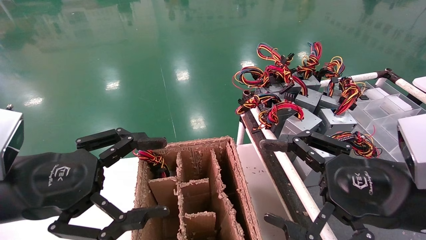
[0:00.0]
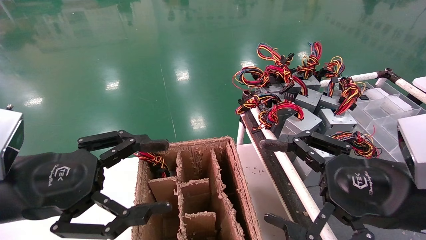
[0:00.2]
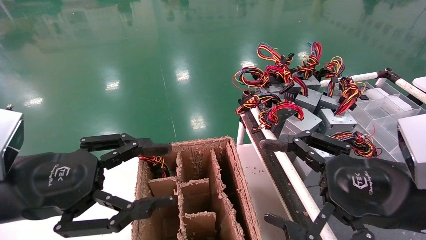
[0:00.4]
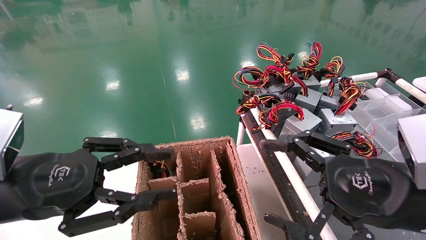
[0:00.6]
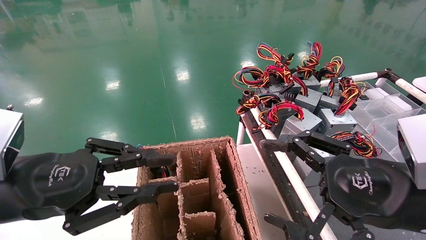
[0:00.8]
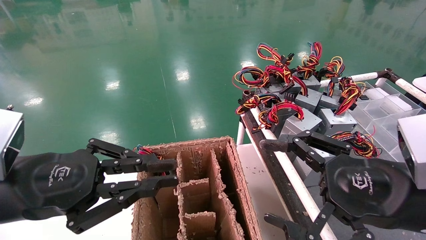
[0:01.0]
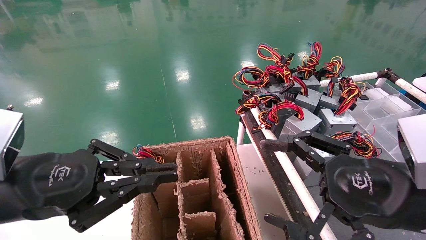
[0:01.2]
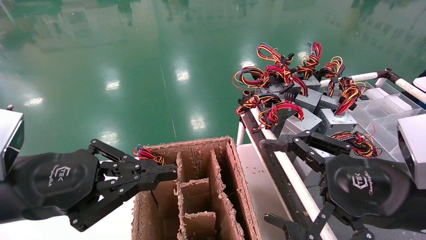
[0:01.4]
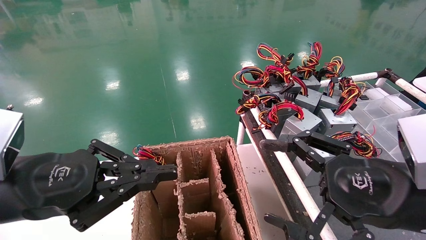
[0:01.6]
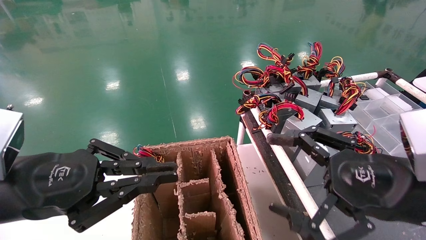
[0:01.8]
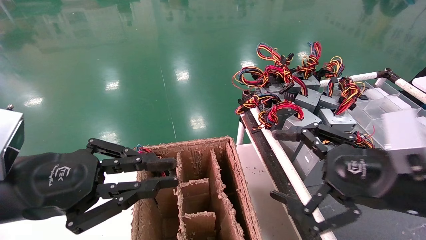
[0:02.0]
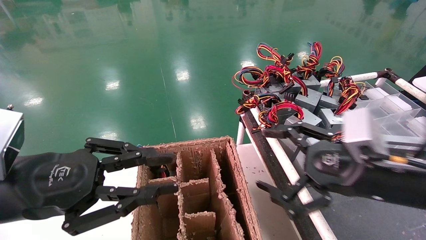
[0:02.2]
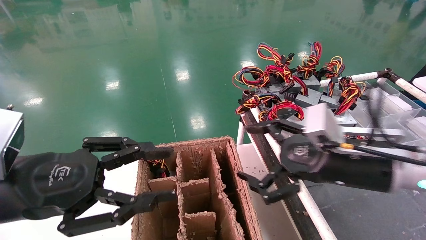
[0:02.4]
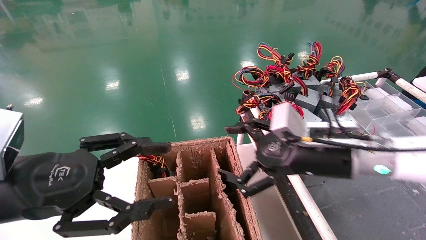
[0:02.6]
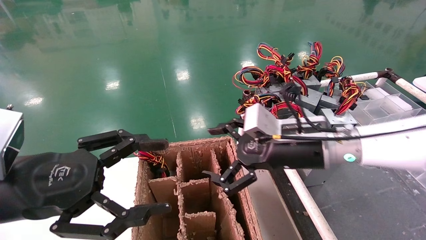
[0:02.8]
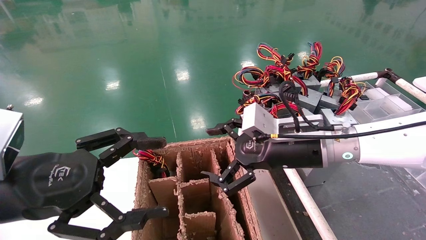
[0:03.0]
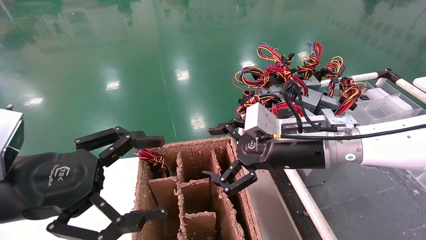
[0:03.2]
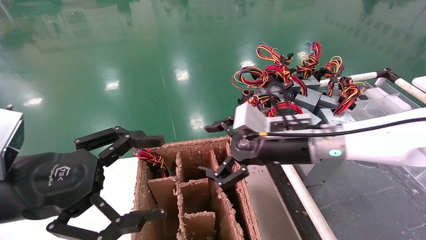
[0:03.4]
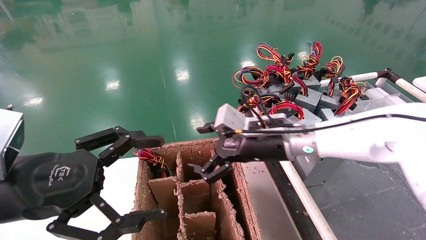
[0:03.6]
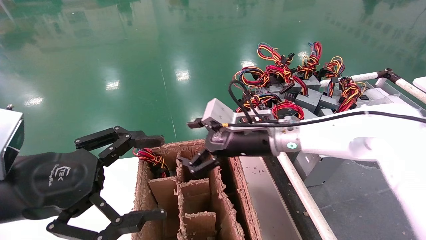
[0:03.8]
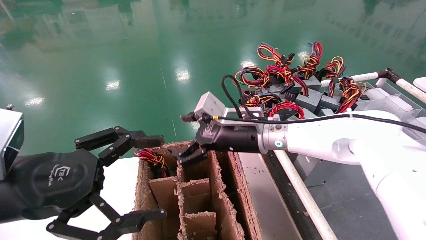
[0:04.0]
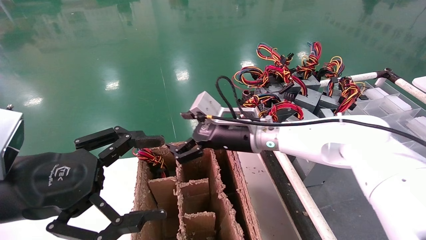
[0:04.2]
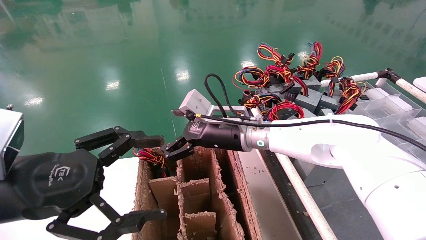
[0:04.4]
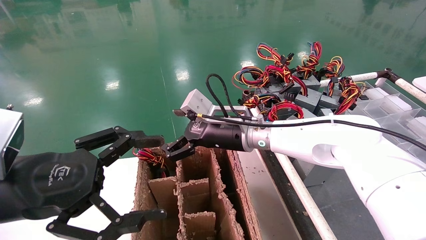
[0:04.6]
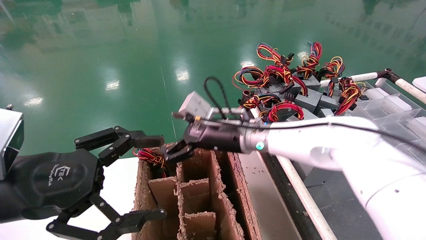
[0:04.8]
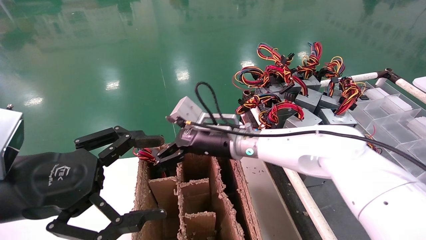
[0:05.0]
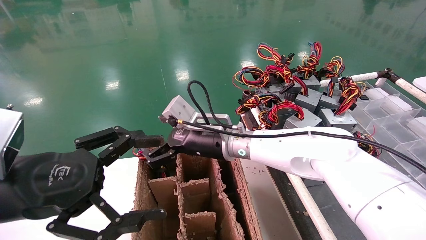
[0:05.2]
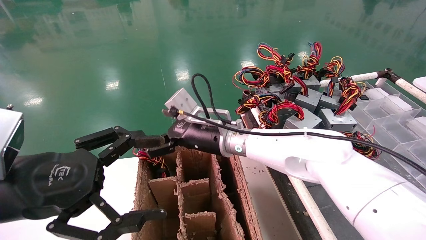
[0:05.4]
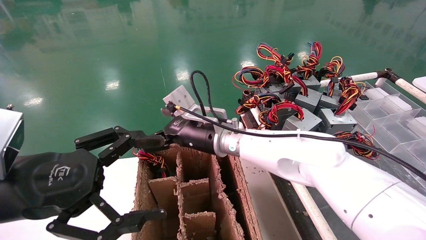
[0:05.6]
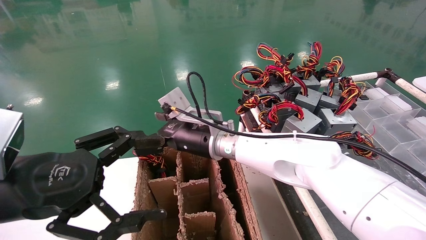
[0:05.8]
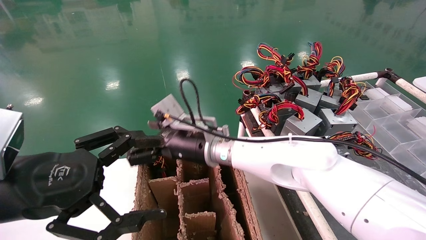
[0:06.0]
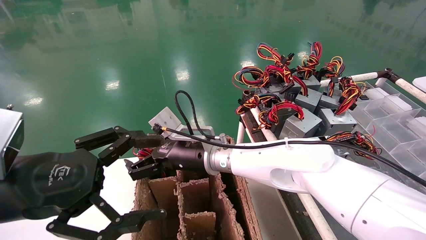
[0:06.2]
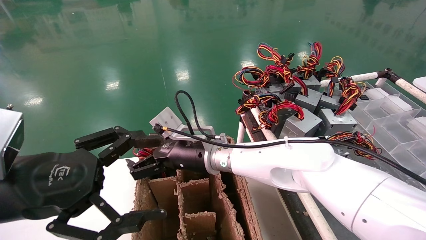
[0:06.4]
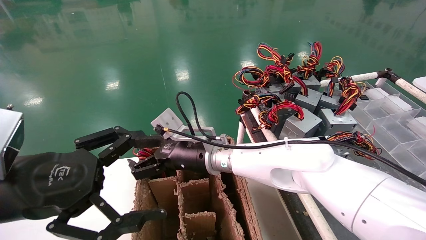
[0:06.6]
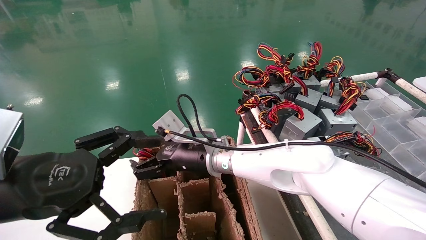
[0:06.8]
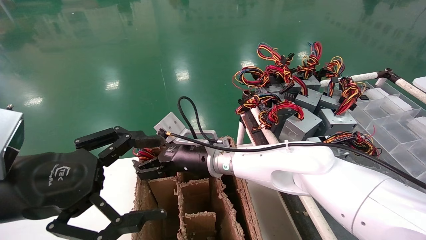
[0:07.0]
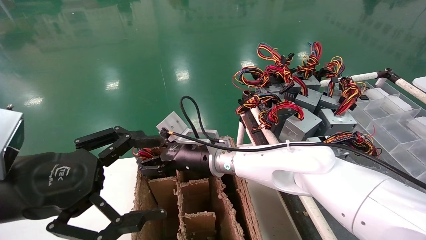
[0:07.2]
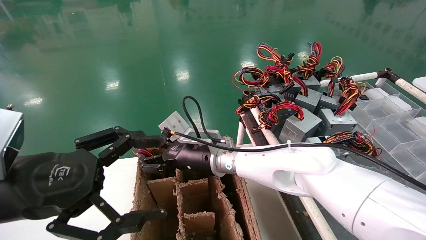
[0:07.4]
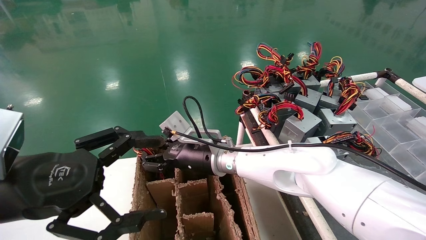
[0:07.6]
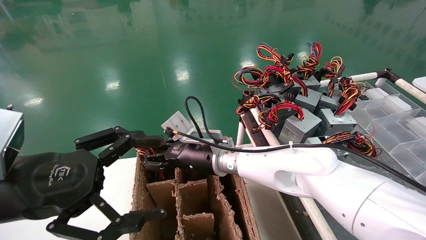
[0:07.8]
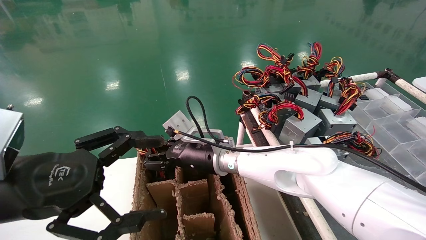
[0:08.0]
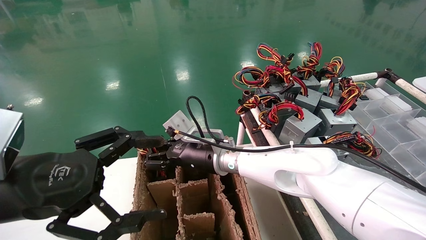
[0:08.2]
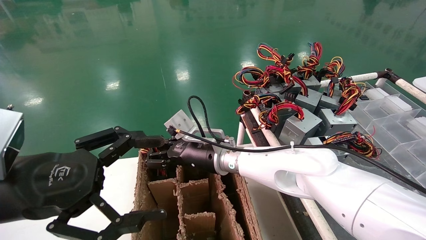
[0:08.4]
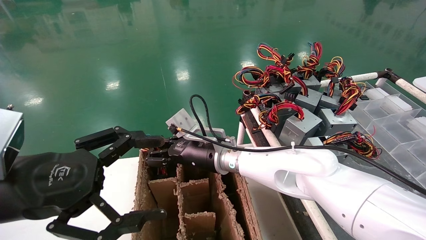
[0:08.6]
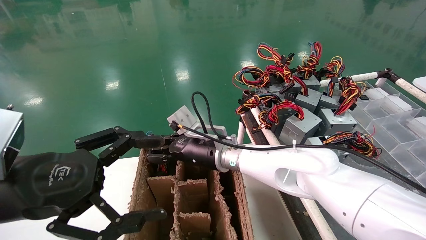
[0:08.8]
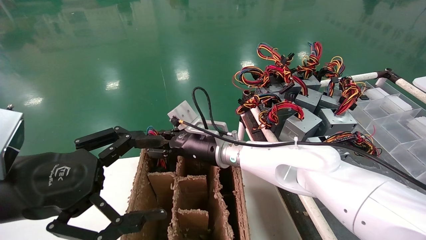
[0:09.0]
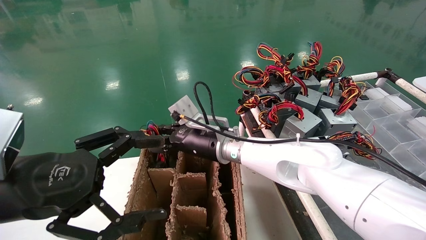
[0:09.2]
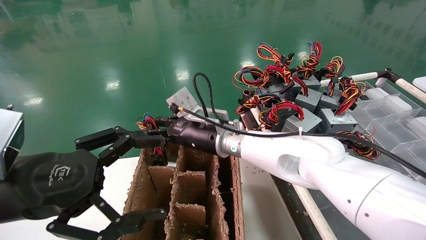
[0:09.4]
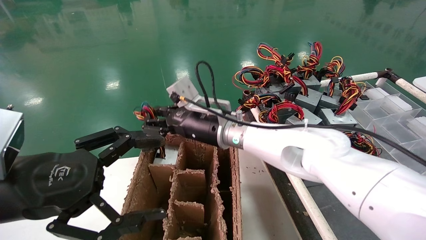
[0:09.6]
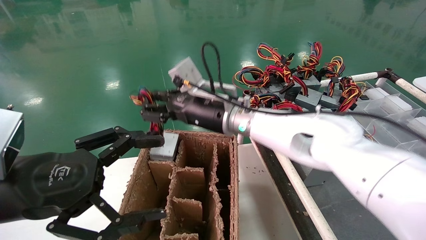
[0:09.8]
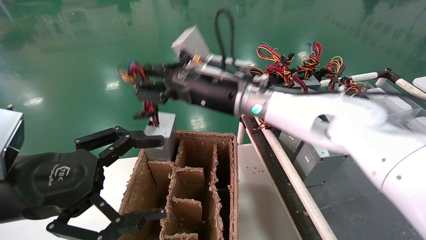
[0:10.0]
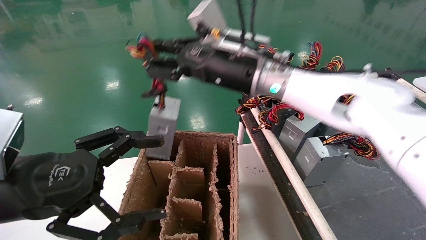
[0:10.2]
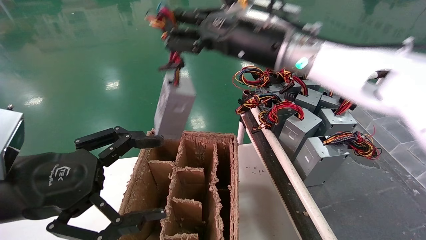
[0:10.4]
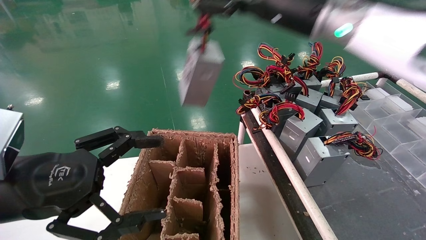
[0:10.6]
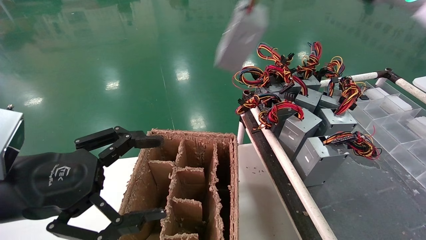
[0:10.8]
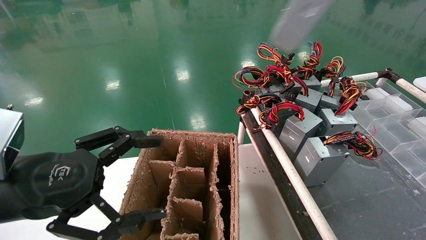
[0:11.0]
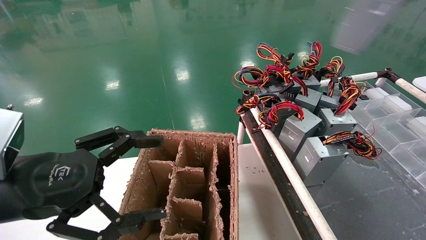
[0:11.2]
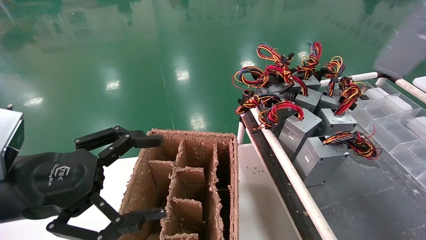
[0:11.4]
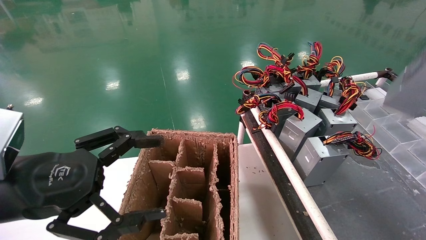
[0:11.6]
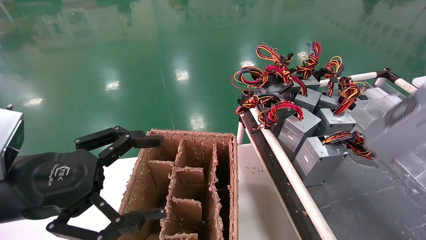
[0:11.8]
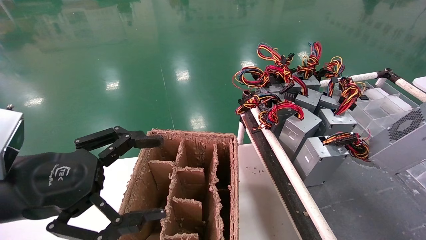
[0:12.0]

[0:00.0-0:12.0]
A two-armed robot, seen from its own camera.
Step, 0:01.4 to 0:07.8: Grab and lift the power supply from the large box.
0:00.0 to 0:01.6: The left gripper closes up.
0:01.6 to 0:03.0: The left gripper opens. The right gripper shifts about 20 cm forward and to the left.
0:03.0 to 0:04.4: The right gripper goes some 15 cm to the left and forward.
0:04.4 to 0:06.0: The right gripper heads to the left, covering approximately 10 cm.
0:06.0 to 0:07.6: The right gripper closes up.
0:07.6 to 0:09.0: The grippers move only a little.
0:09.0 to 0:10.4: The right gripper travels upward and to the right by about 25 cm.
0:10.4 to 0:12.0: The right gripper goes some 40 cm to the right and backward.

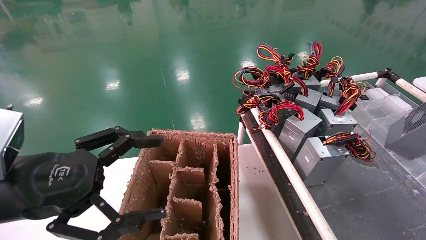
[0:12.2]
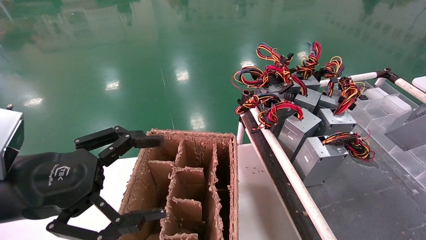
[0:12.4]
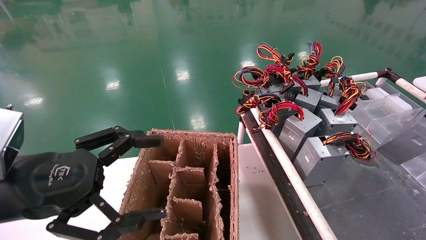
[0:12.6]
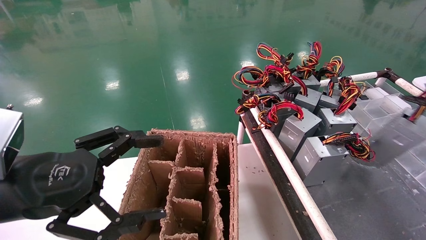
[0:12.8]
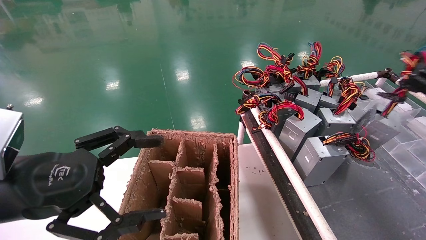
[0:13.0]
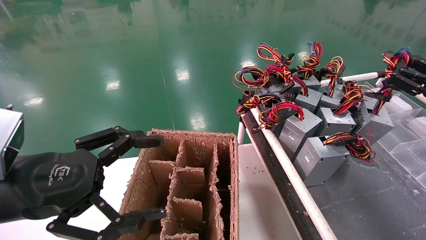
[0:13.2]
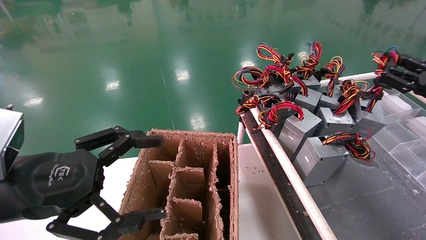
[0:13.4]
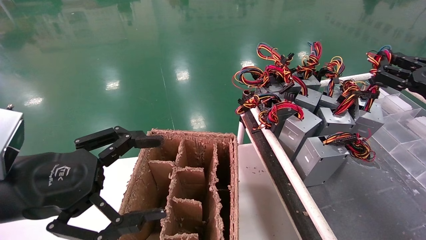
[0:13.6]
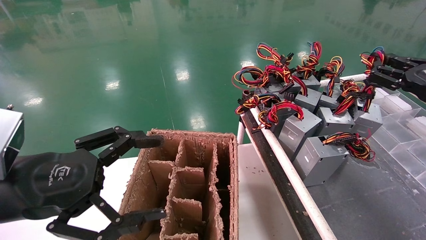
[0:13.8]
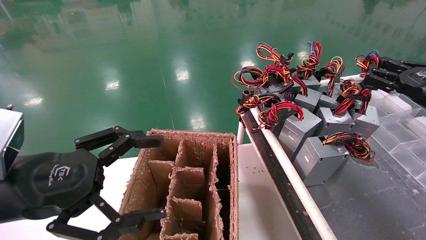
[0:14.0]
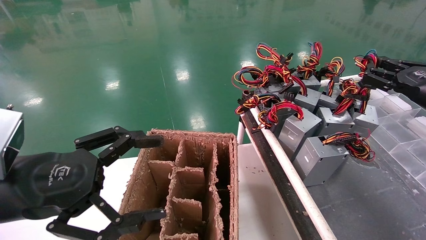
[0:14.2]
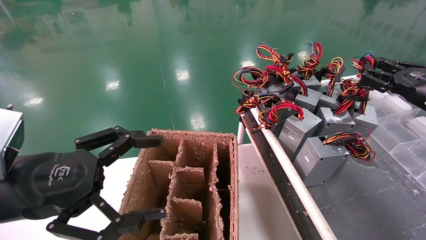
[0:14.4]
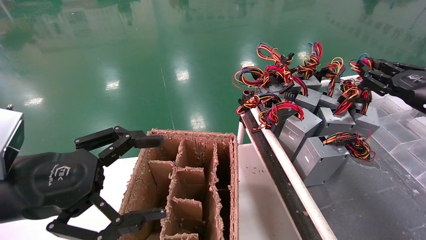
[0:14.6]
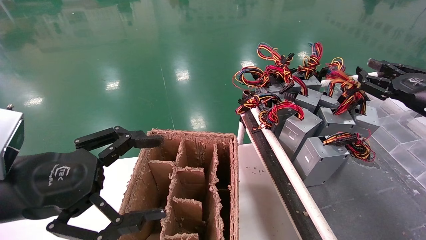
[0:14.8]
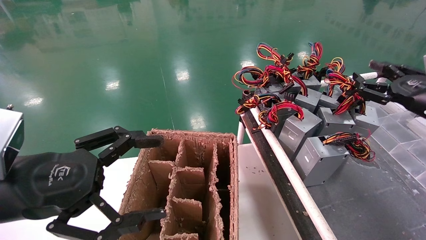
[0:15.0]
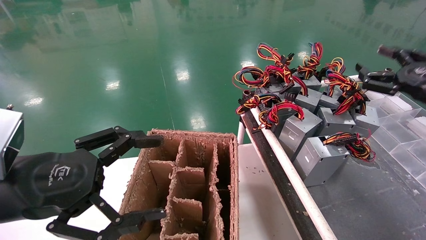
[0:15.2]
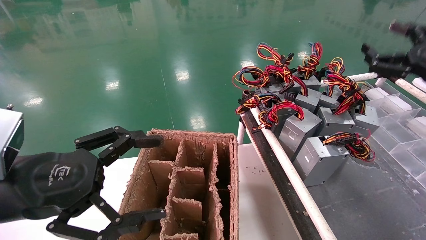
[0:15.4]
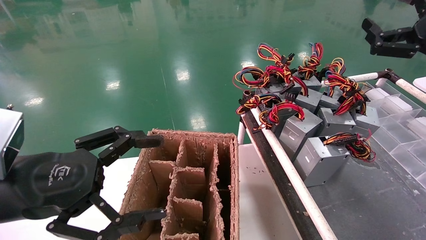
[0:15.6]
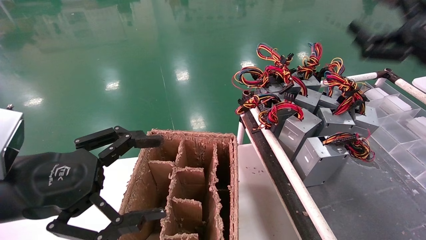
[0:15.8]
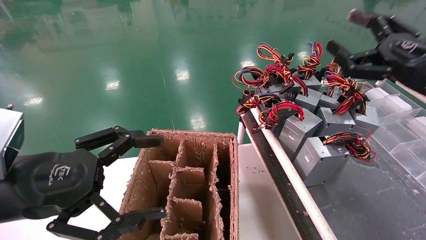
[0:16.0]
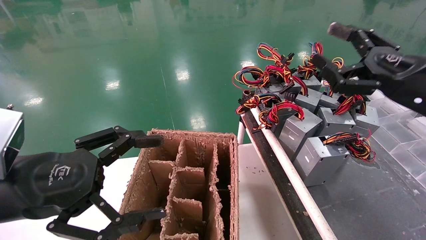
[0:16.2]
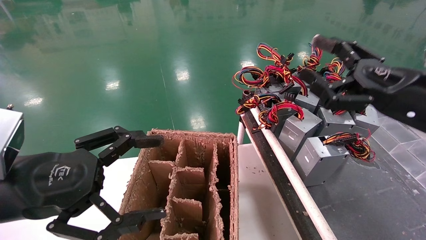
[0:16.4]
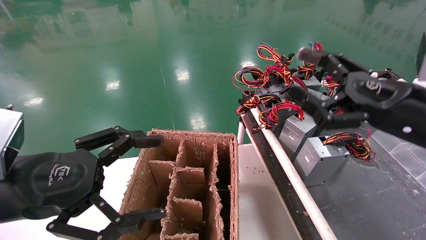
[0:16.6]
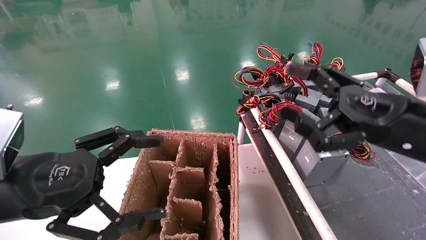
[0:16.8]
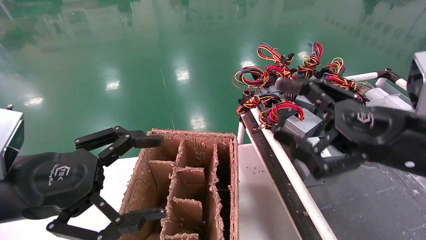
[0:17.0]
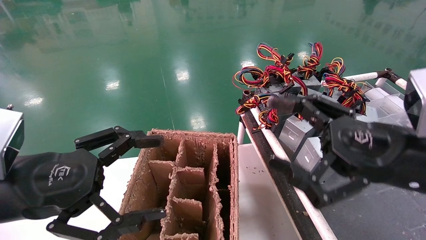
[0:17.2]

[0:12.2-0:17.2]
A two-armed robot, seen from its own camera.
Step, 0:12.2 to 0:14.8: Place the power supply on the operating table.
0:12.2 to 0:13.8: The right gripper goes about 15 cm forward and to the left.
0:13.8 to 0:15.6: The right gripper is displaced upward by roughly 5 cm, and opens its fingers.
0:15.6 to 0:17.2: The right gripper shifts about 20 cm to the left, backward and downward.
